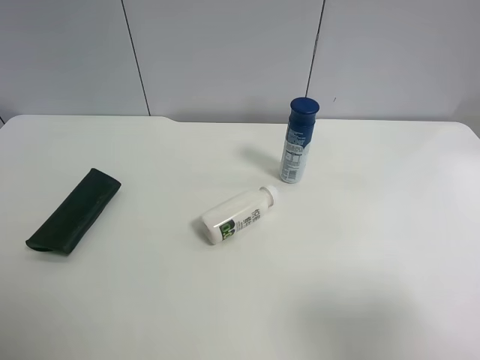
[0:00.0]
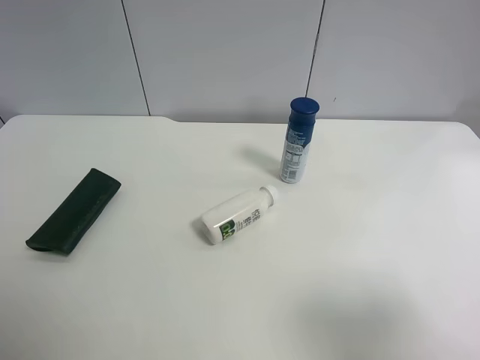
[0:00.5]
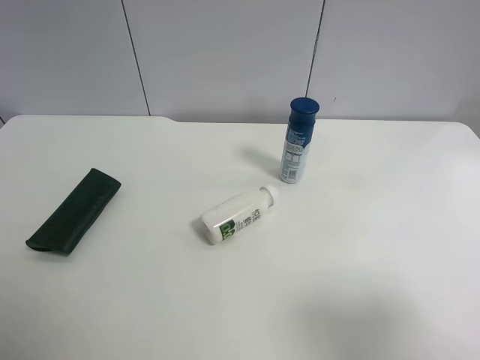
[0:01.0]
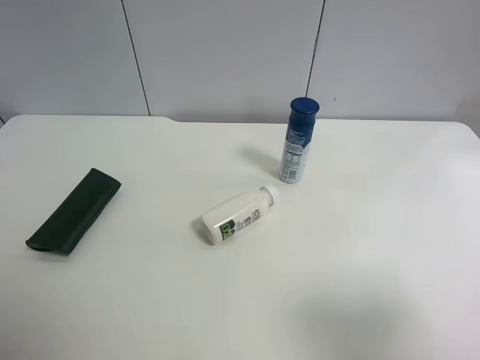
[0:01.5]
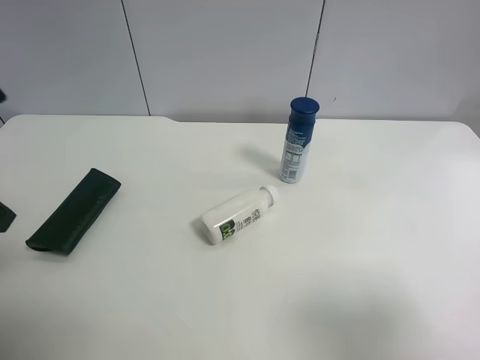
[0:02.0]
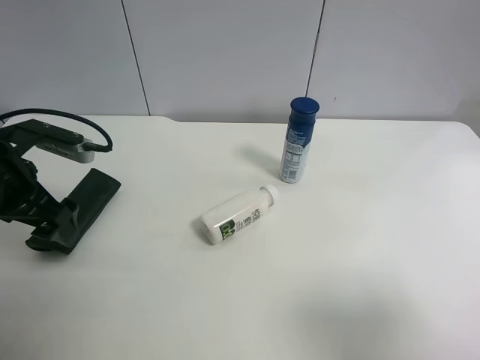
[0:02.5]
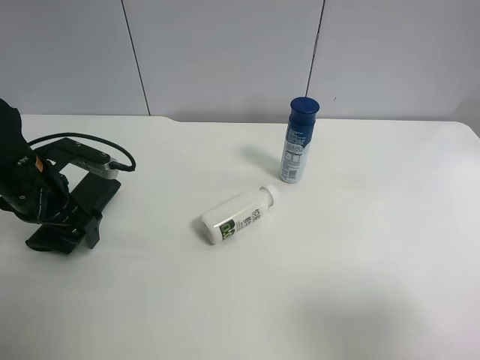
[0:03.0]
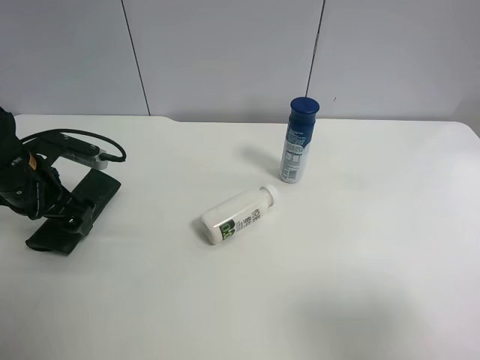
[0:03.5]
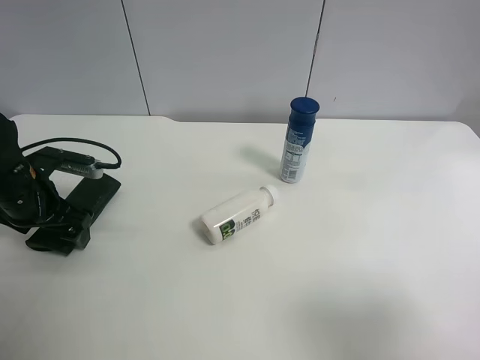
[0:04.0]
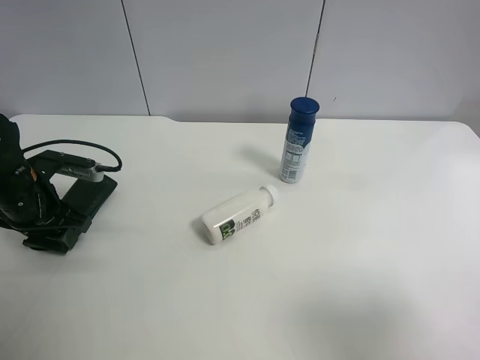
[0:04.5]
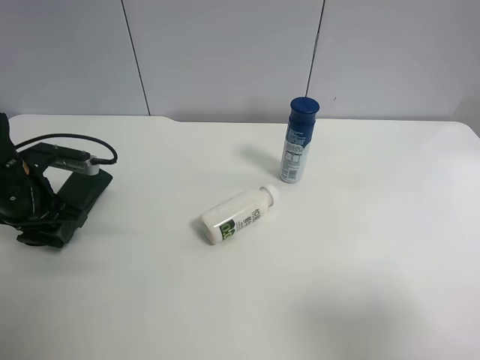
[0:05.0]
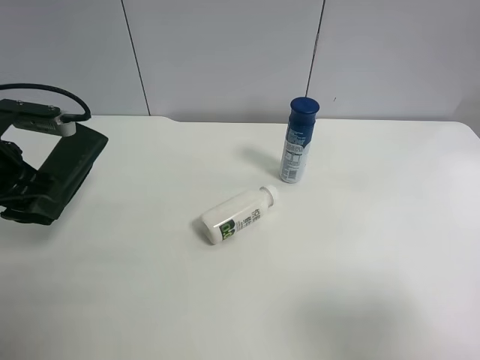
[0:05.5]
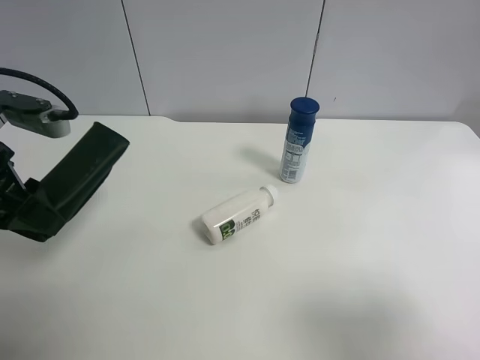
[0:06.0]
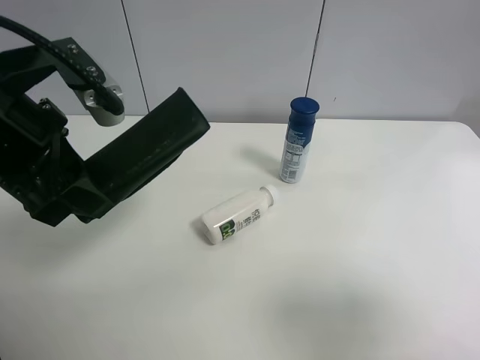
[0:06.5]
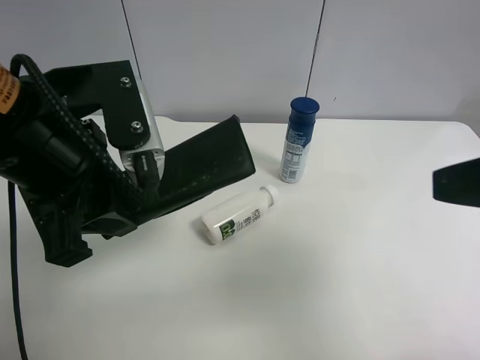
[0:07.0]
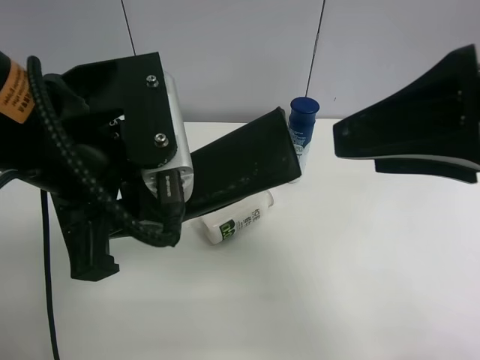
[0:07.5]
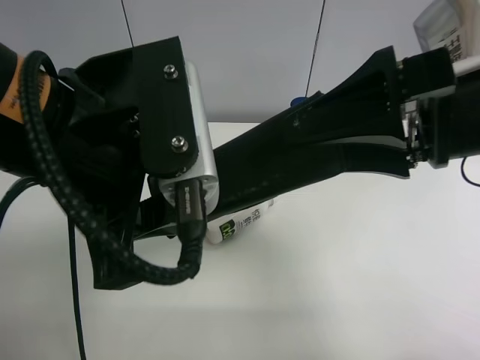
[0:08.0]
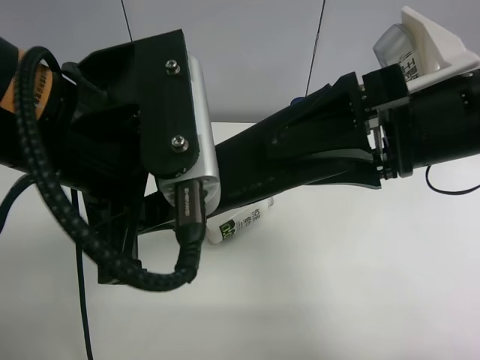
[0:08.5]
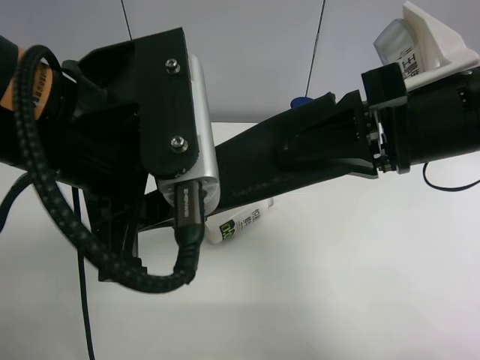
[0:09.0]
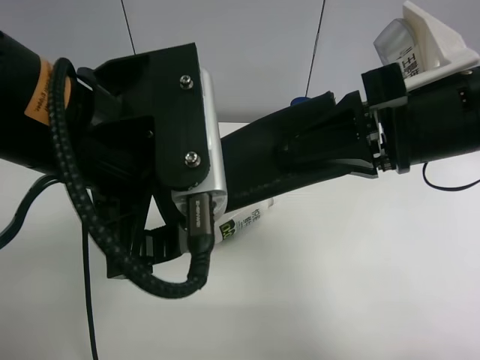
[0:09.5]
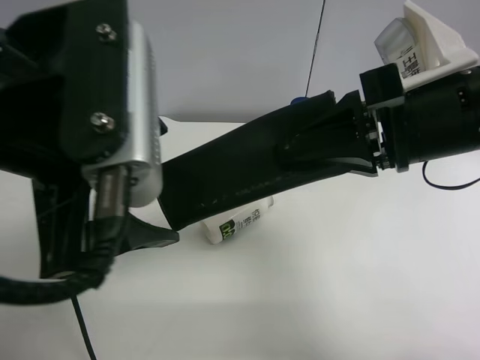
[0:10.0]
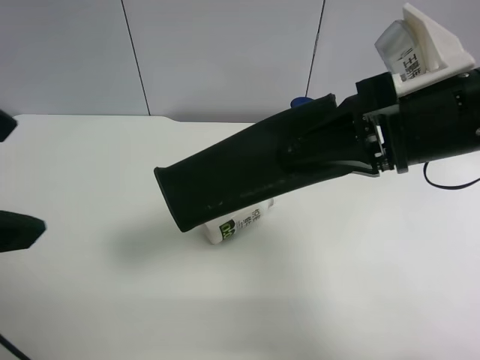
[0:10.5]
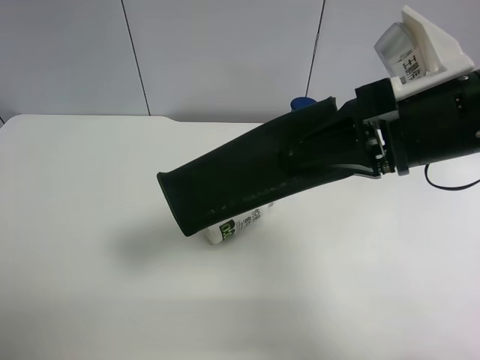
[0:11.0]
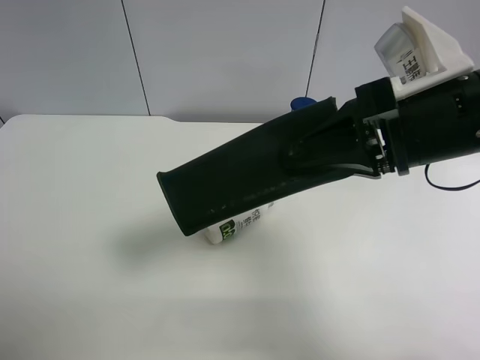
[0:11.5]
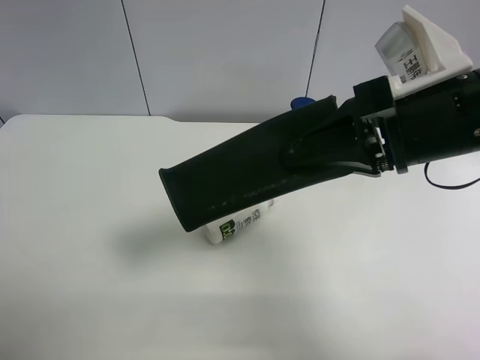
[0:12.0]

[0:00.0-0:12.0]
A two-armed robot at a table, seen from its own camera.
Task of the whole recording: use the left gripper to pick up the item and transfer it from the left gripper to the right gripper.
0:02.0 to 0:04.0: The left gripper heads downward and forward, covering approximately 20 cm.
0:04.0 to 0:06.0: The left gripper heads upward and backward, covering approximately 15 cm, and closes its fingers.
0:06.0 to 0:08.0: The right gripper travels forward and to the left by some 20 cm, while the left gripper shifts roughly 15 cm to the right.
0:08.0 to 0:10.0: The left gripper opens its fingers. Meanwhile the right gripper closes its fingers.
0:10.0 to 0:12.0: The left gripper is displaced to the left and backward by about 20 cm.

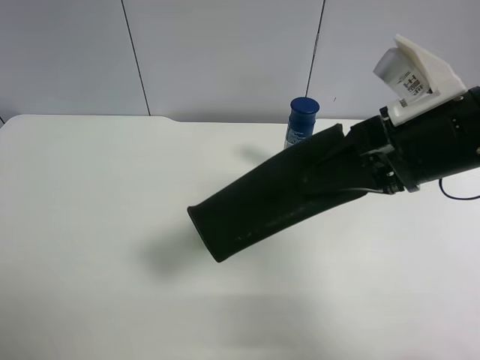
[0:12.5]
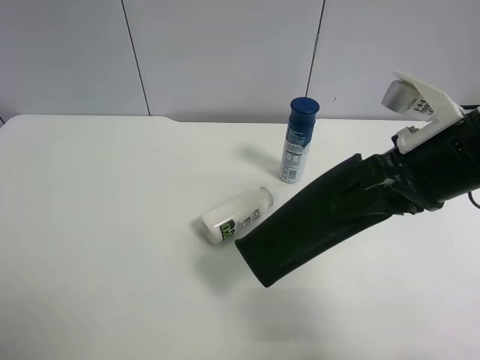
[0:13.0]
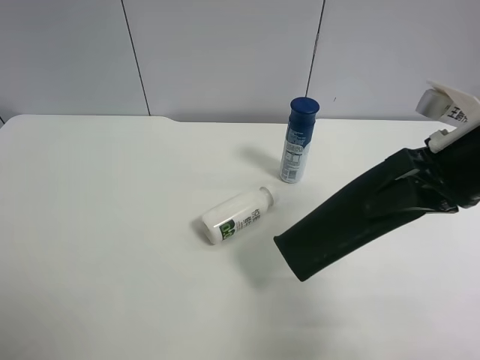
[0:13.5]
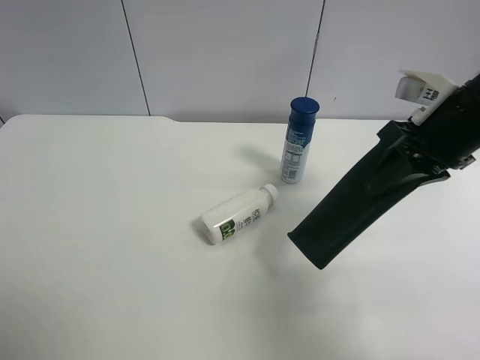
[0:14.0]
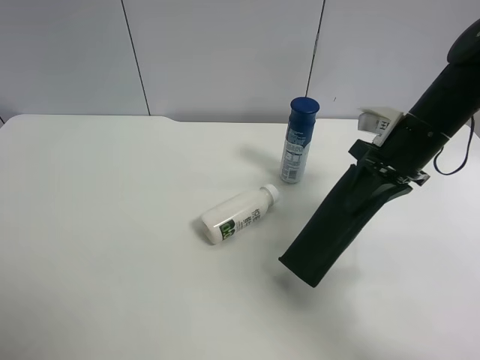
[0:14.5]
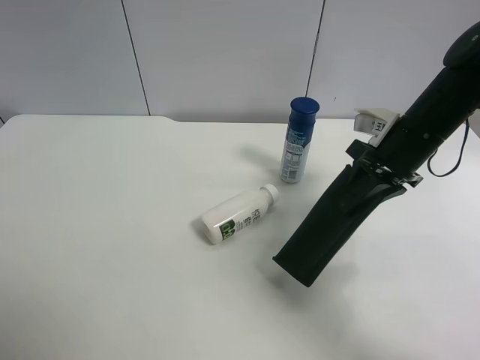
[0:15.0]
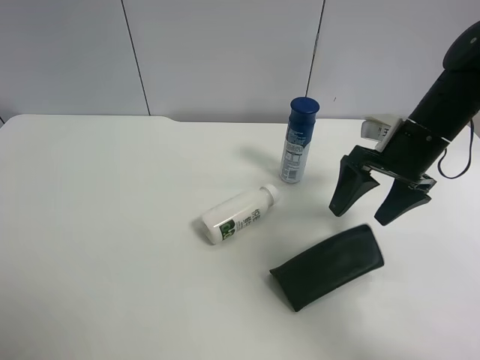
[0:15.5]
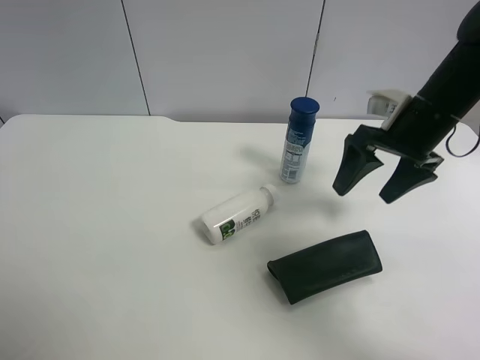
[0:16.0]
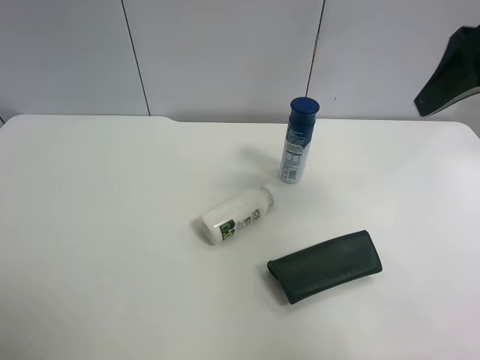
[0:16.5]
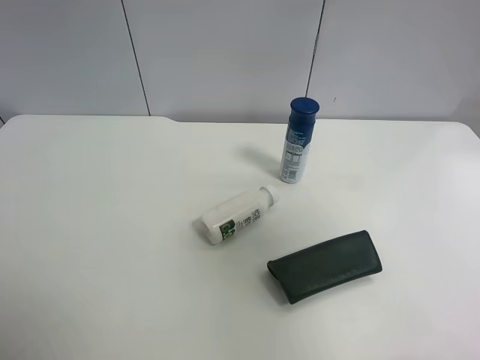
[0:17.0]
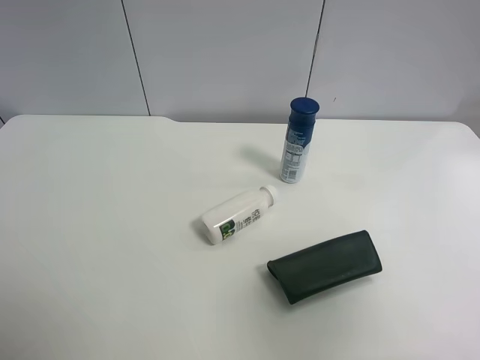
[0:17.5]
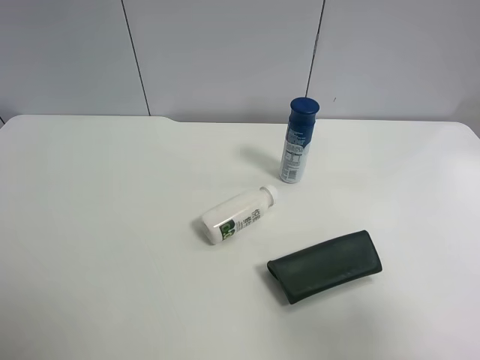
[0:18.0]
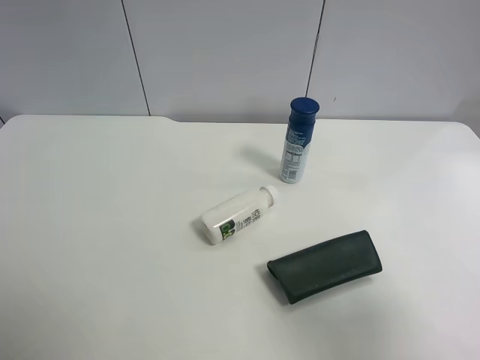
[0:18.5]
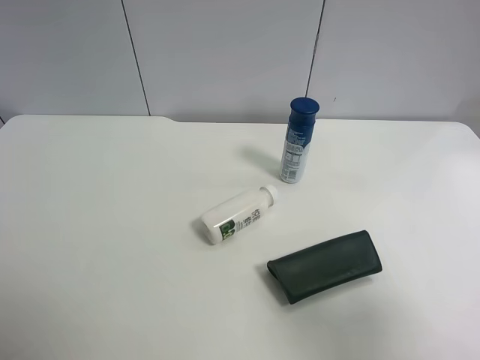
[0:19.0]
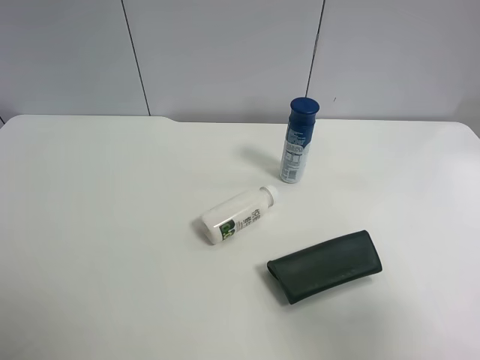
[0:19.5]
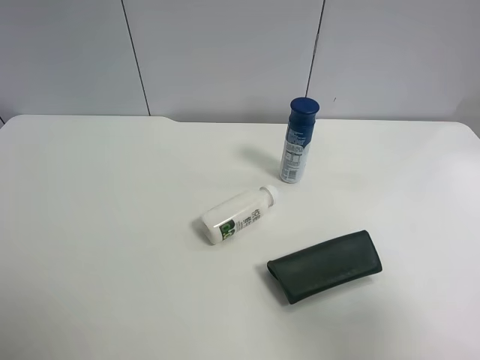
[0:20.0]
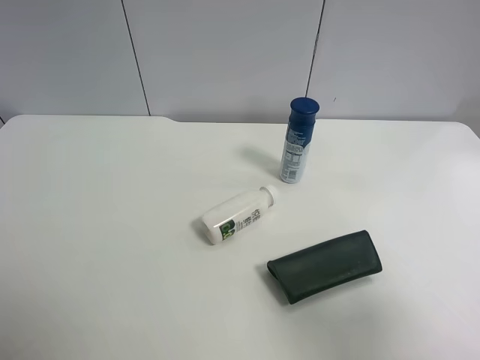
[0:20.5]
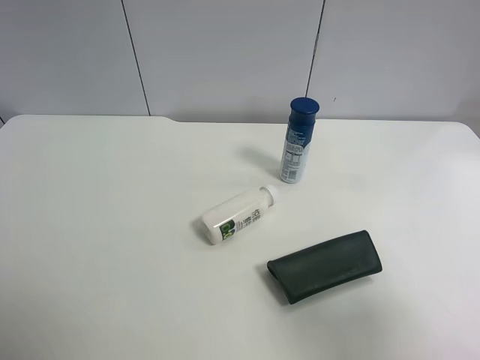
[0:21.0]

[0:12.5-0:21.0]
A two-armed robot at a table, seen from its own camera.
Task of the whole recording: use the left gripper to pick up the item and transfer it from the left gripper to the right gripper.
0:12.5 to 0:14.5: The right gripper goes roughly 15 cm forward, downward and to the right.
0:14.5 to 0:16.5: The right gripper is displaced upward and backward by some 20 cm, and opens up.
0:16.5 to 0:19.0: The right gripper travels backward and downward by approximately 25 cm.
0:19.0 to 0:21.0: Both grippers stay put.
